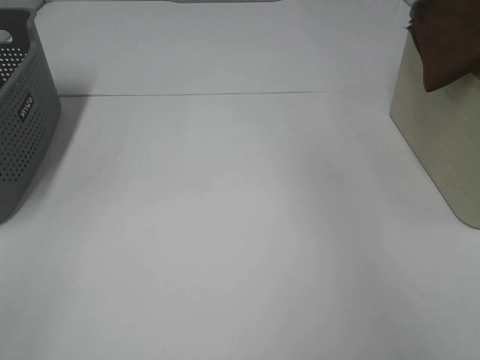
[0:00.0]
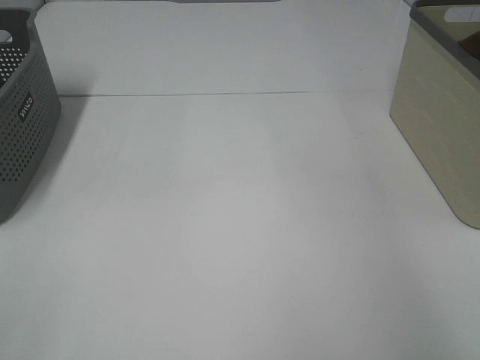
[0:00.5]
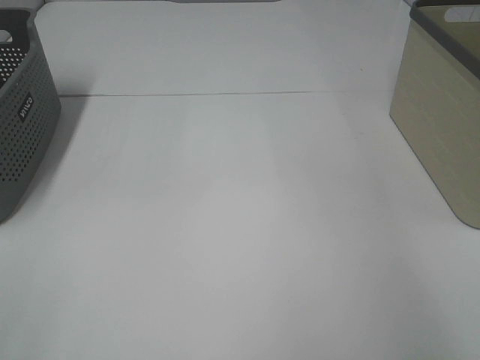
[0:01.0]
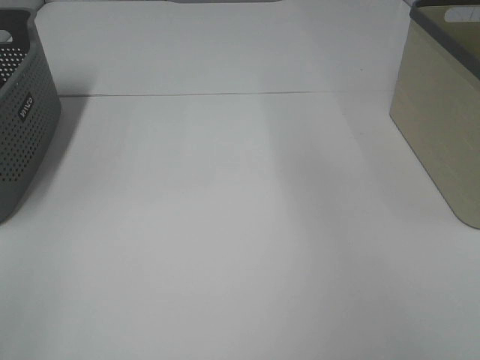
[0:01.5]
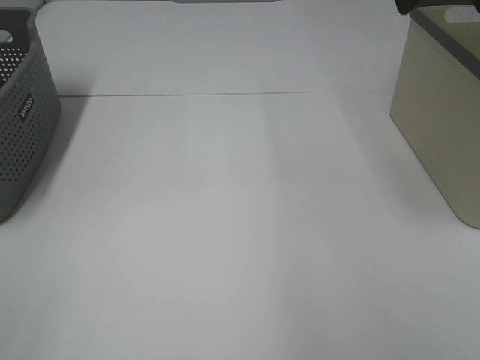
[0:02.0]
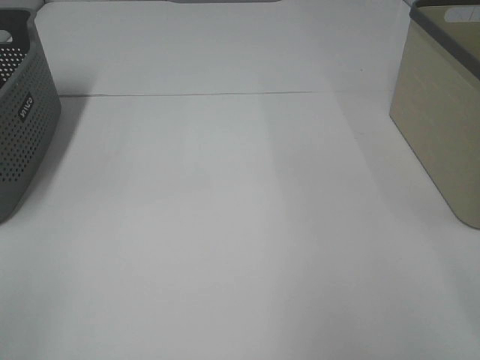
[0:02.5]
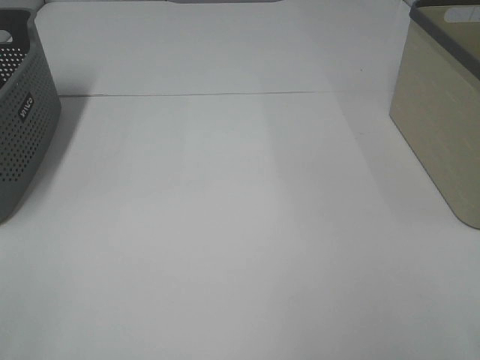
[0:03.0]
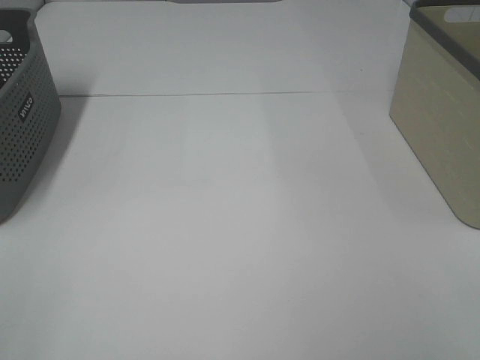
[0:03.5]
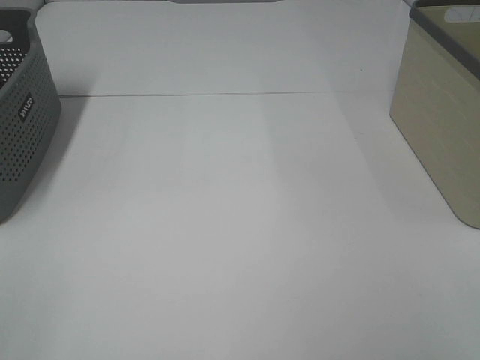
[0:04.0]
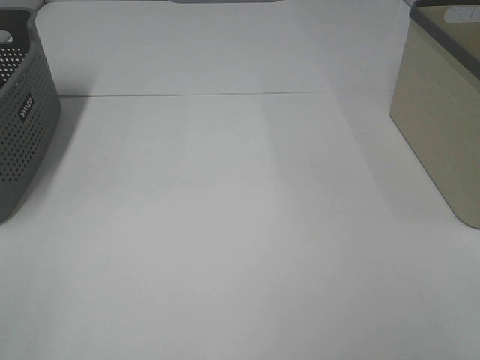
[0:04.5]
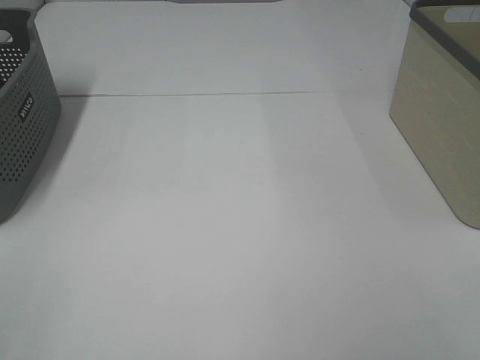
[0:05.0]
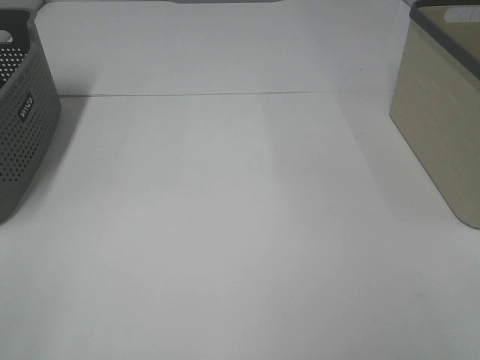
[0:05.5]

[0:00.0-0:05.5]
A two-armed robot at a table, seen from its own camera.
0:00.0 to 0:02.0: The right gripper travels to the left and backward by some 15 cm, and opens its fingers.

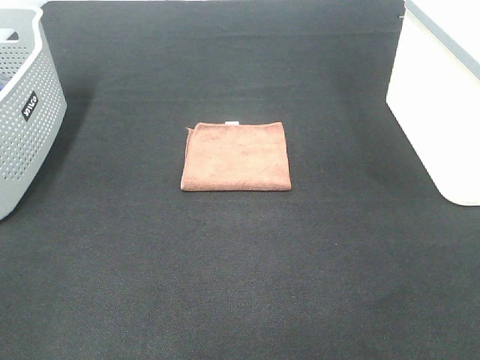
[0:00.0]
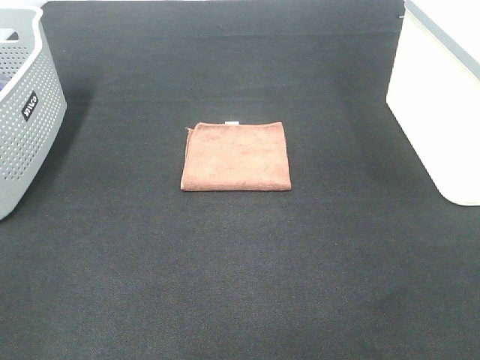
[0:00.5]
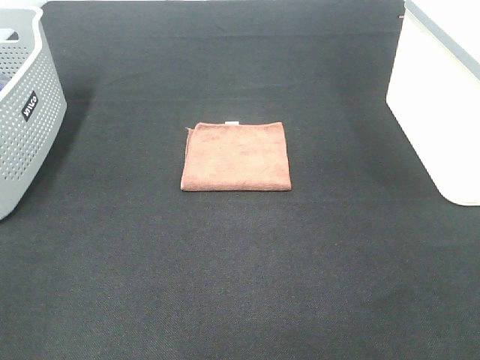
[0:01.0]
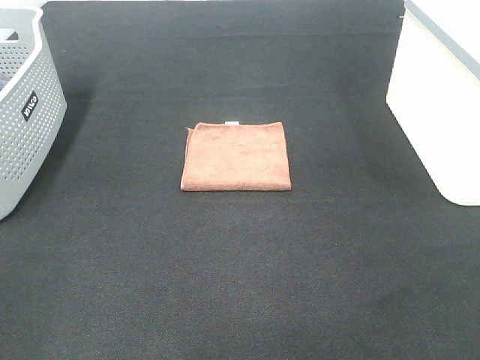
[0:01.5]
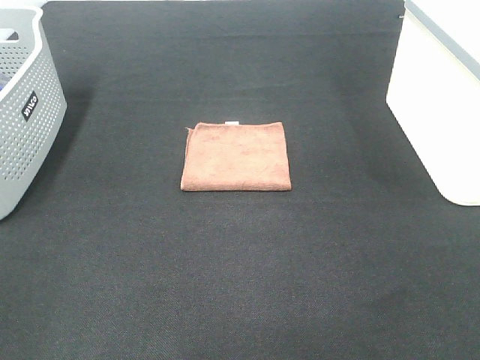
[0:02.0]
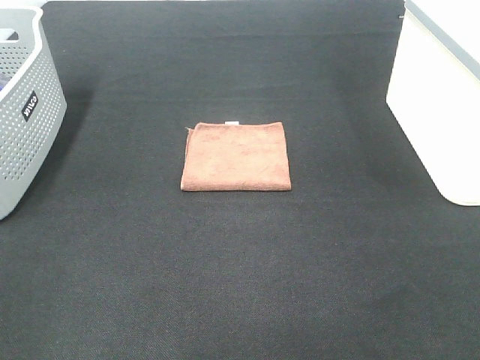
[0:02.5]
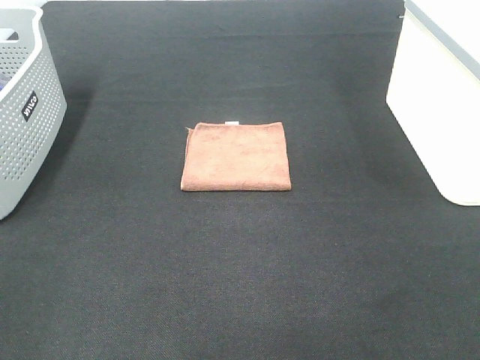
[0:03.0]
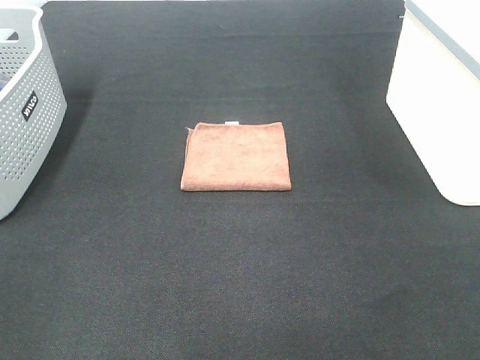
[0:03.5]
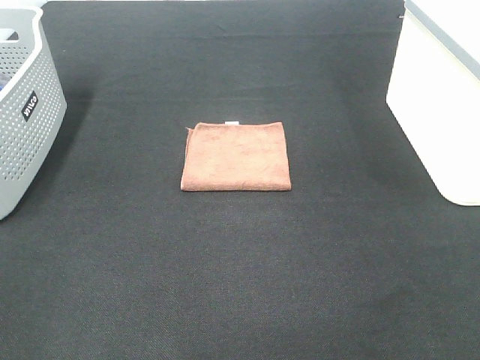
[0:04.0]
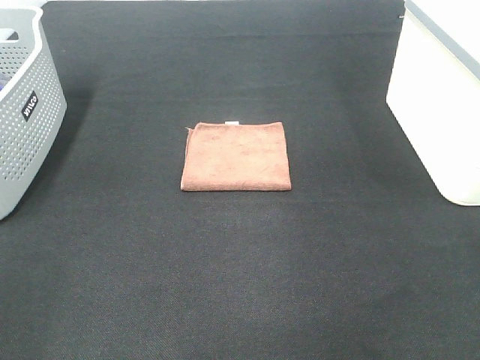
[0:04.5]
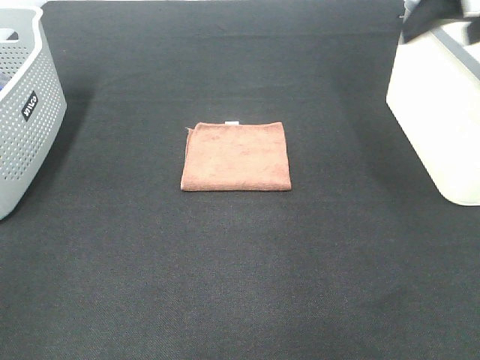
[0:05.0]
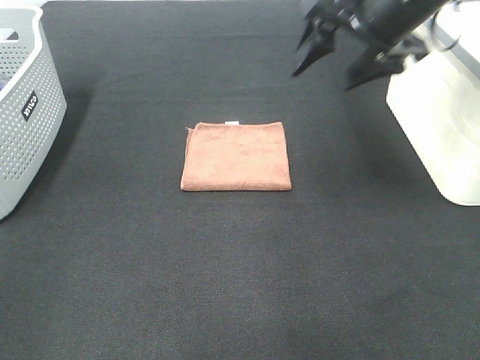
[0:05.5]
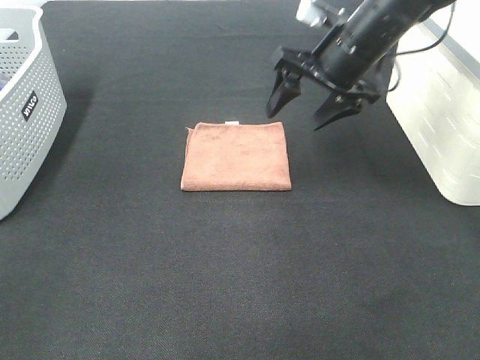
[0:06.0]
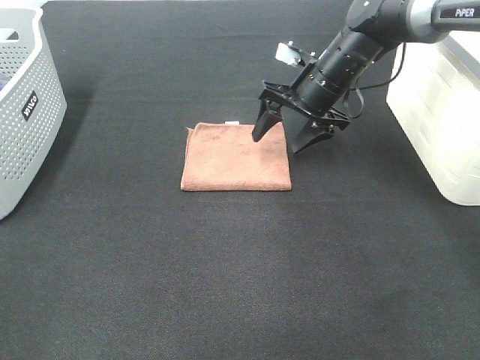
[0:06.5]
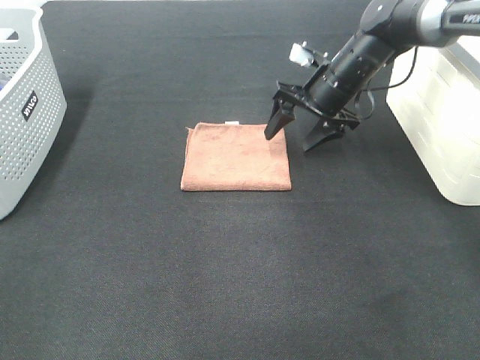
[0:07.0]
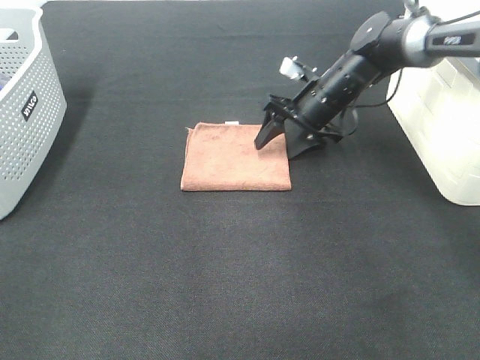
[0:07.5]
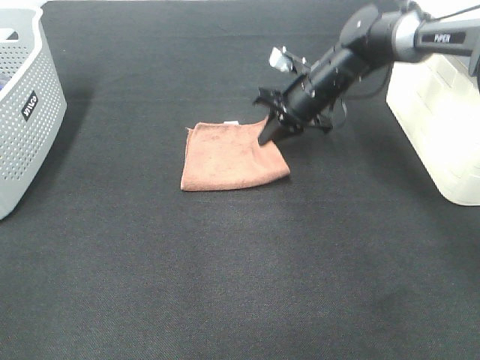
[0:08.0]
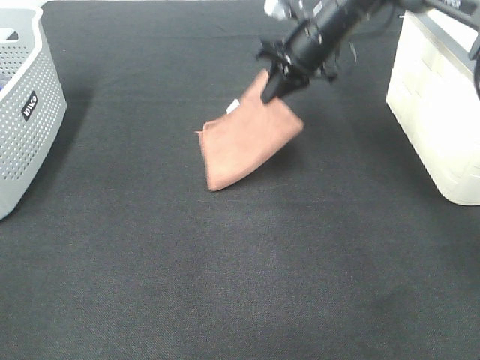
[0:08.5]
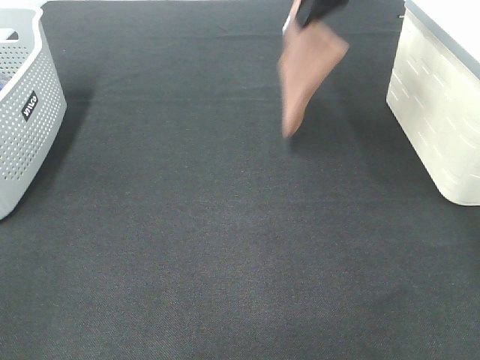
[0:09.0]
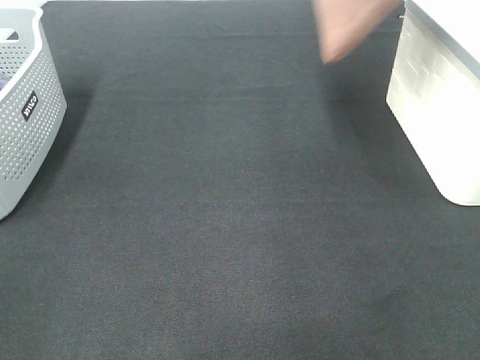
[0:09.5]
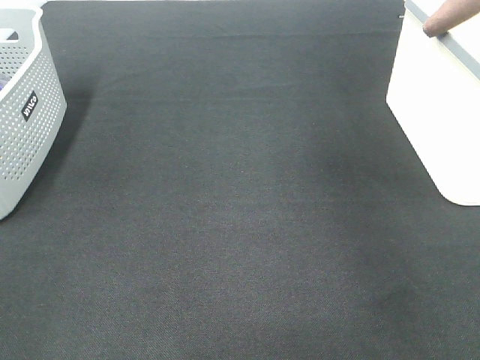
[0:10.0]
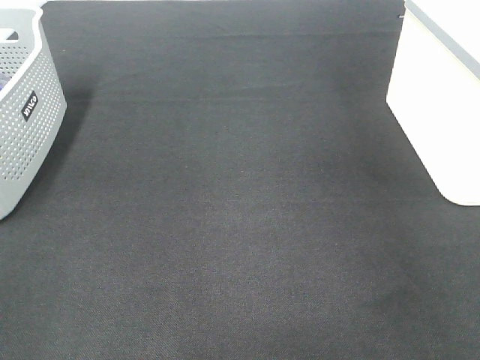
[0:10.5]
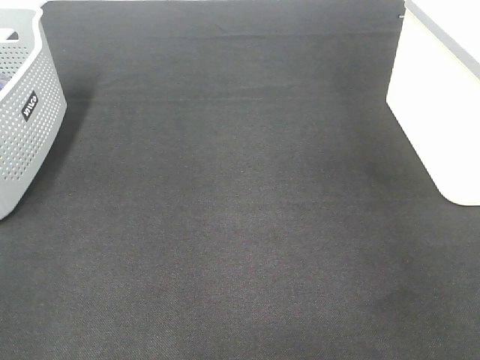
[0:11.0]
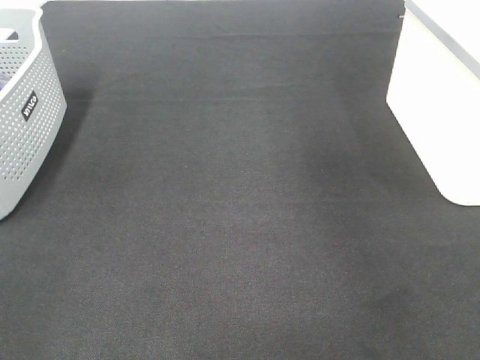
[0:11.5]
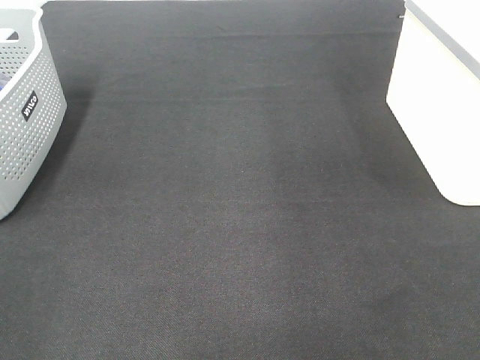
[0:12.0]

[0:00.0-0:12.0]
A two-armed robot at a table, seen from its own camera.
Step, 0:00.0 to 0:07.5: Right hand: grab the folded brown towel.
Step, 0:08.0 to 0:10.5: Right hand: place the brown towel in right basket.
0:00.0 to 0:02.0: The two grippers keep their place.
0:04.0 to 0:06.0: The right gripper travels forward and to the left by approximately 40 cm.
0:06.0 to 0:08.0: The right gripper heads downward and forward, covering roughly 10 cm, and closes.
0:08.0 to 0:10.0: The right gripper heads upward and to the right, covering approximately 40 cm.
0:10.0 to 0:12.0: The right gripper moves to the left and backward, approximately 15 cm, and opens.

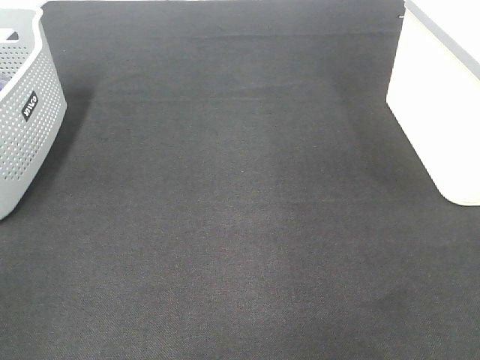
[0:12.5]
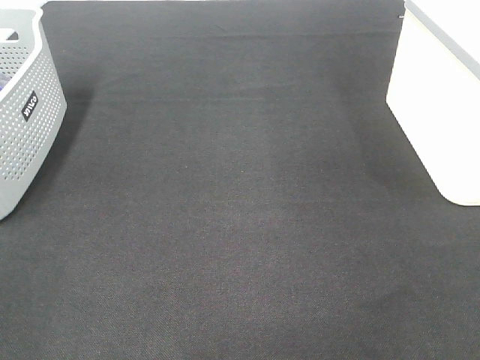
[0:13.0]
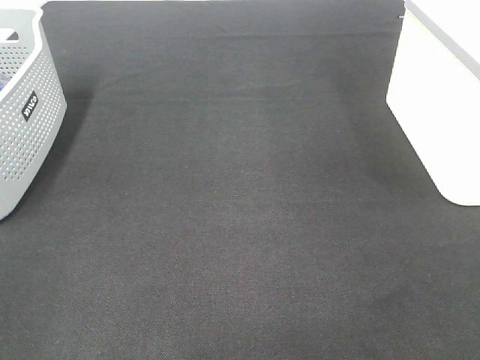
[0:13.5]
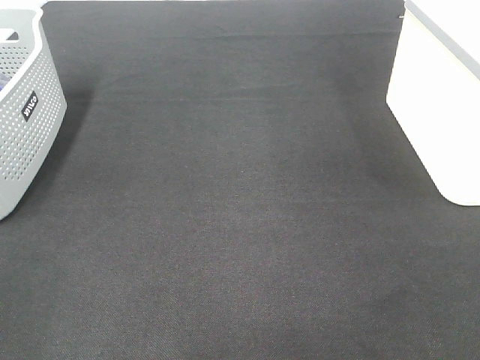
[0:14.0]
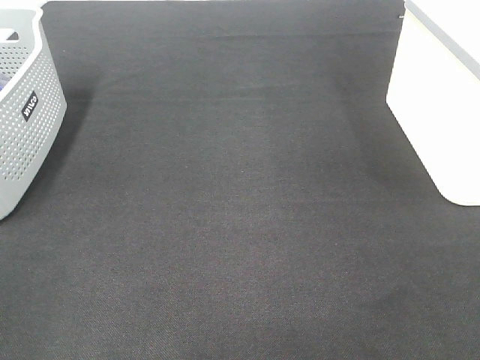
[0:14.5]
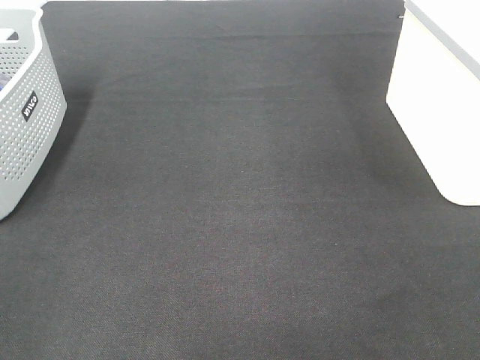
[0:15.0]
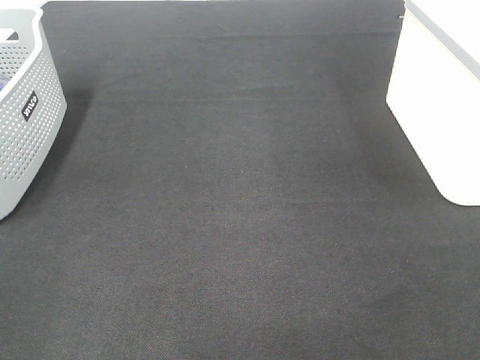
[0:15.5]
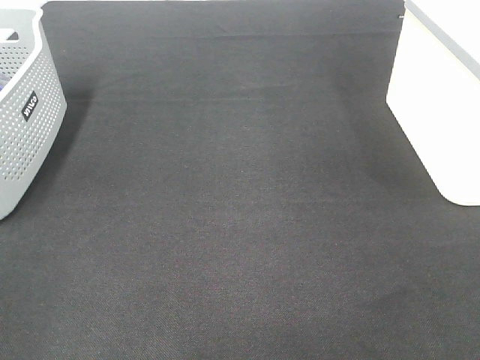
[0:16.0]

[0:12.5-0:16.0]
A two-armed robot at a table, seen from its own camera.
0:14.5 to 0:16.0: Neither gripper changes place.

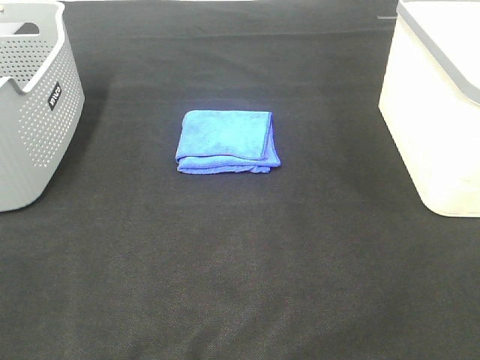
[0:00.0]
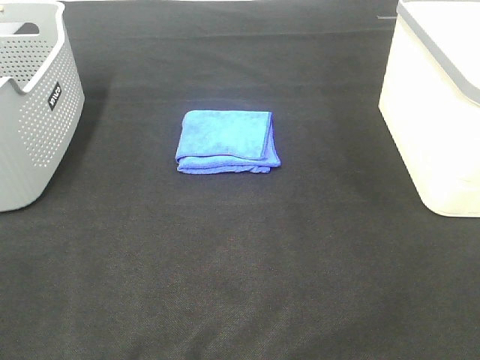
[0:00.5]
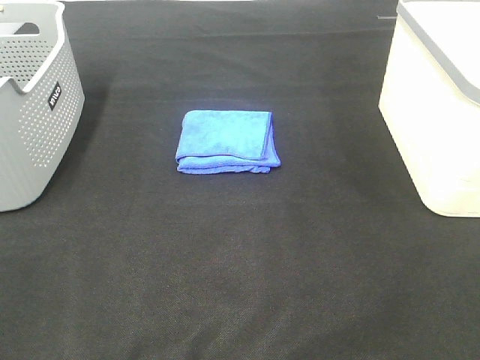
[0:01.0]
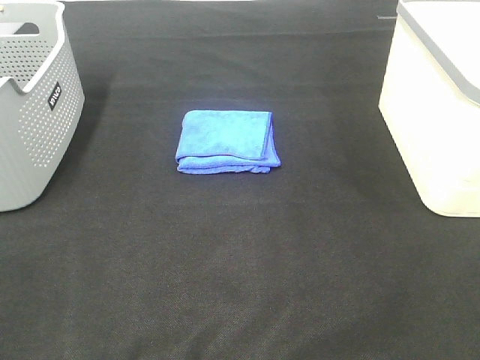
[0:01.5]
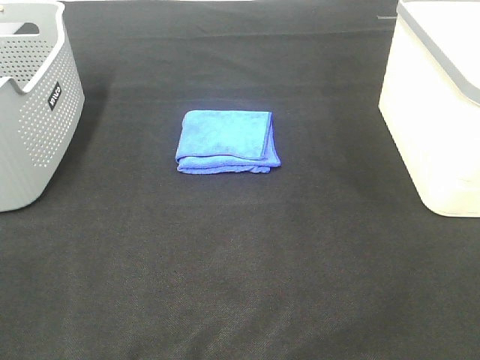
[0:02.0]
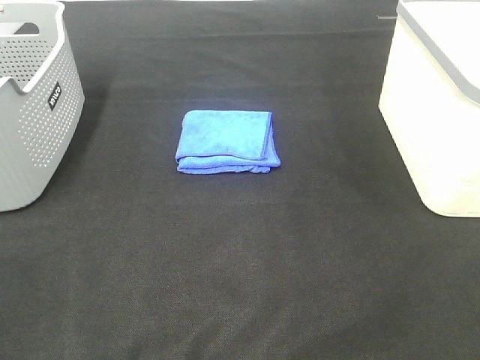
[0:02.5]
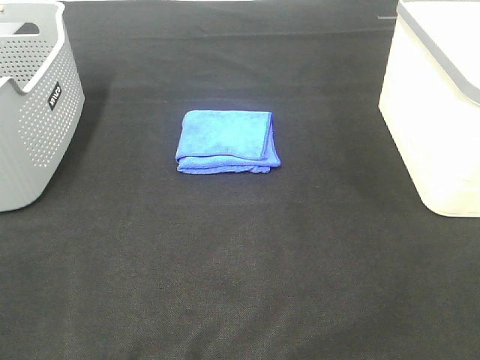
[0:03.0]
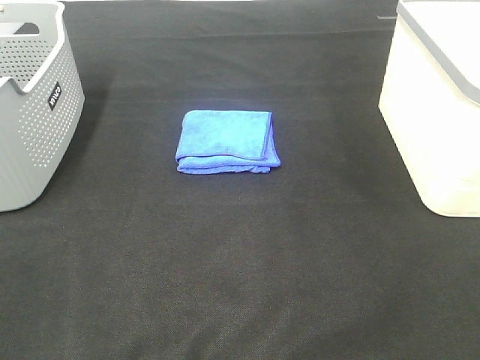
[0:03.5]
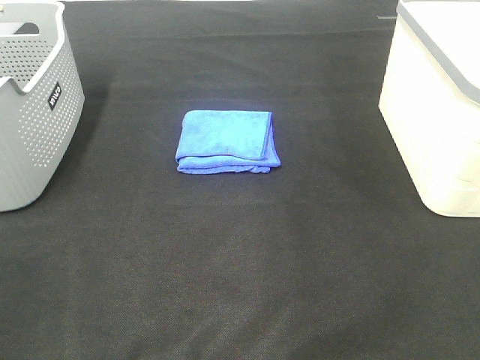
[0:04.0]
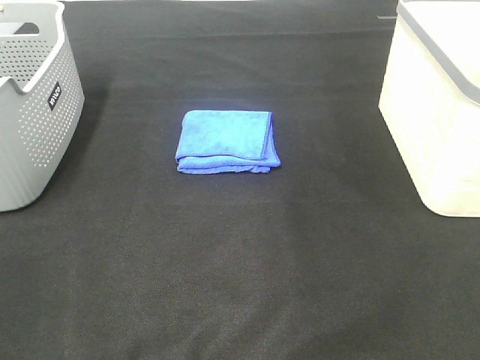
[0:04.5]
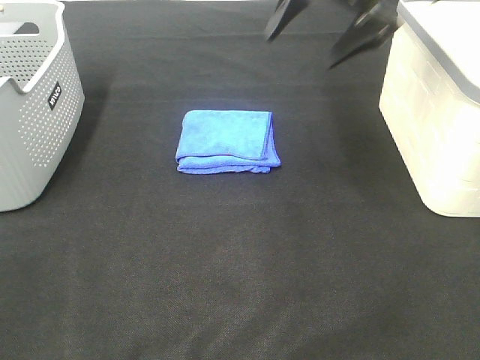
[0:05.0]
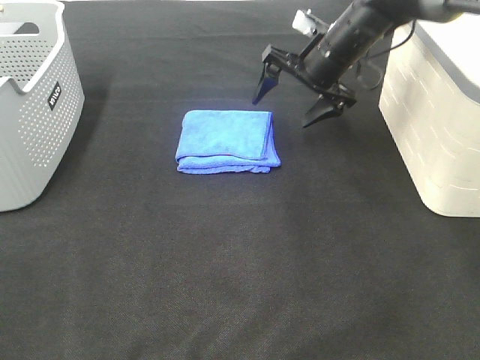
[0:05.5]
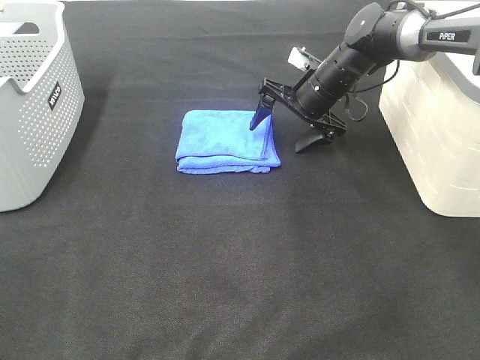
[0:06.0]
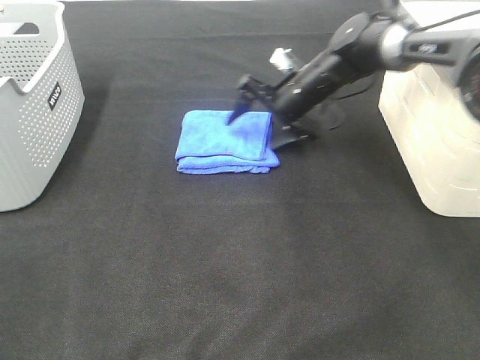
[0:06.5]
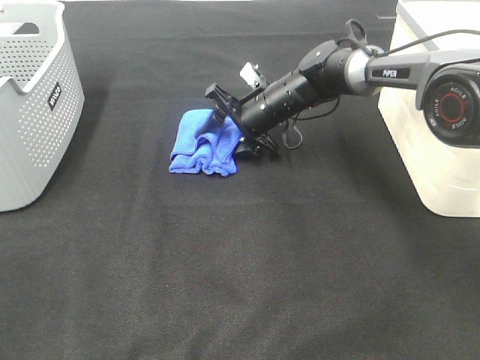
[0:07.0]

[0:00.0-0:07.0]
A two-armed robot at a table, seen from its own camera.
0:00.0 to 0:03.5: Both grippers stay put.
0:03.5 to 0:05.0: The right gripper heads forward, covering about 40 cm.
0:05.0 to 0:07.0: The right gripper heads downward, covering about 20 cm, and closes its fingers.
